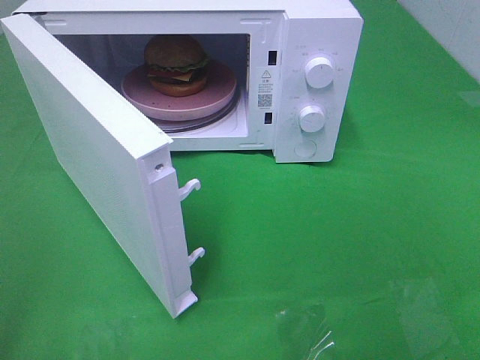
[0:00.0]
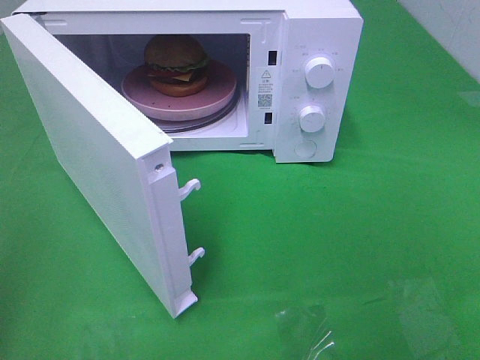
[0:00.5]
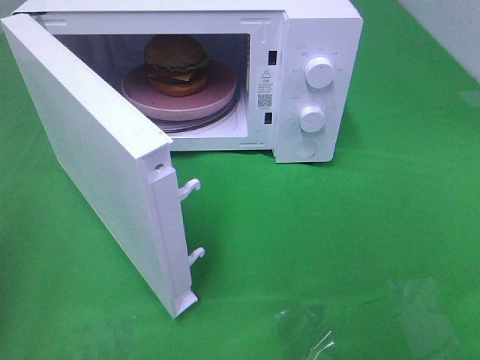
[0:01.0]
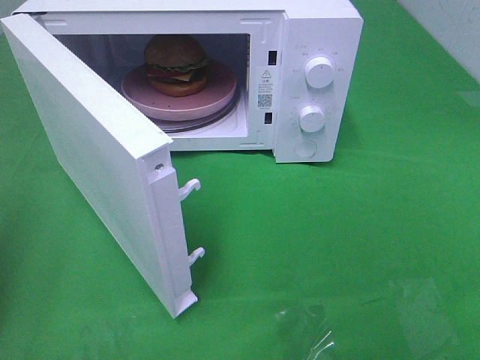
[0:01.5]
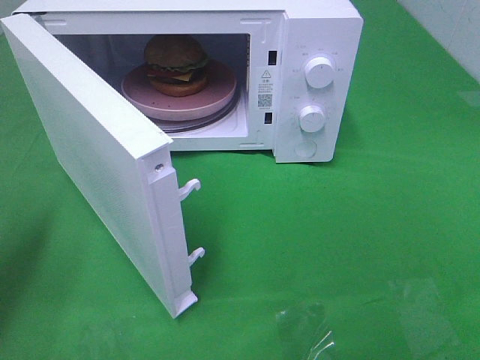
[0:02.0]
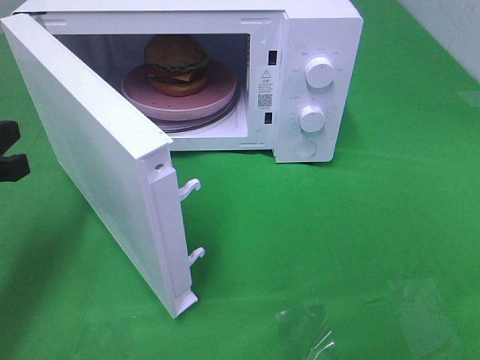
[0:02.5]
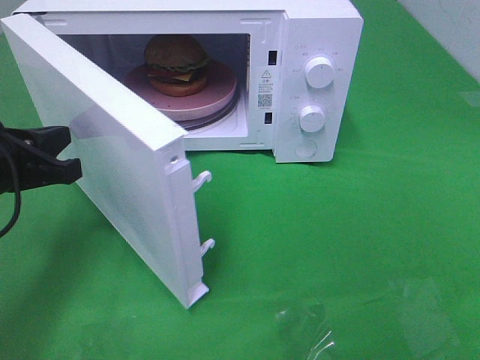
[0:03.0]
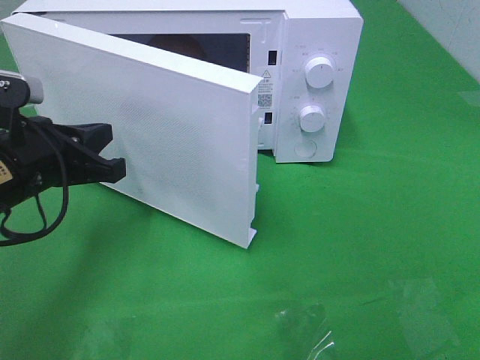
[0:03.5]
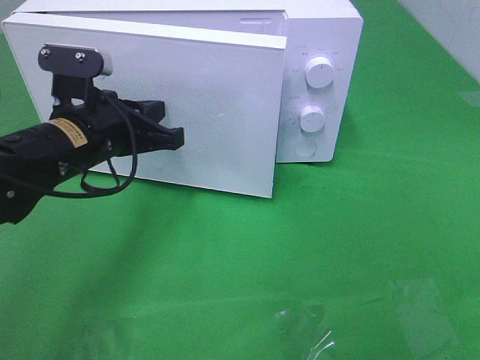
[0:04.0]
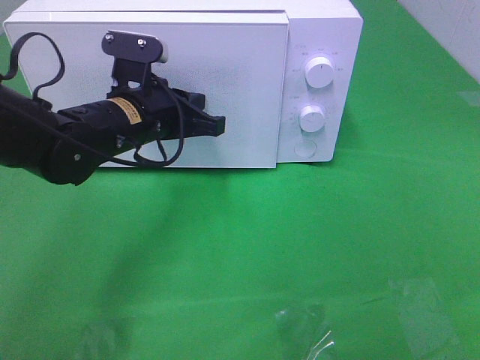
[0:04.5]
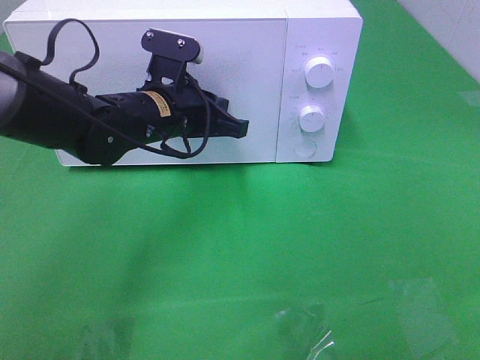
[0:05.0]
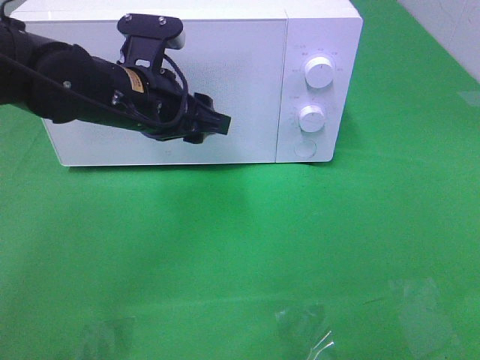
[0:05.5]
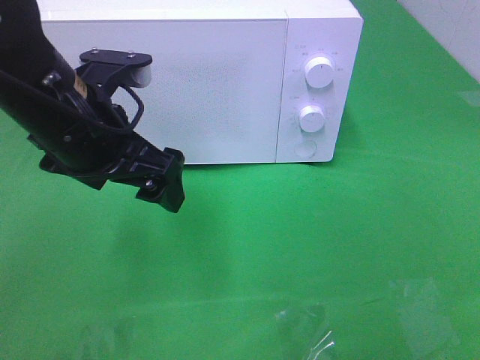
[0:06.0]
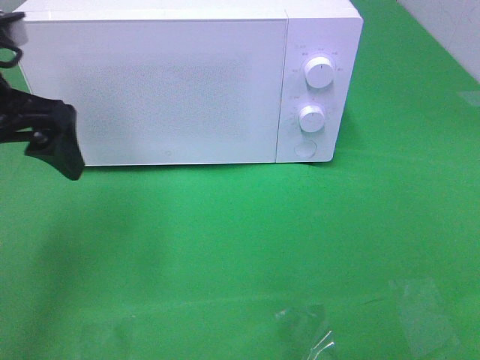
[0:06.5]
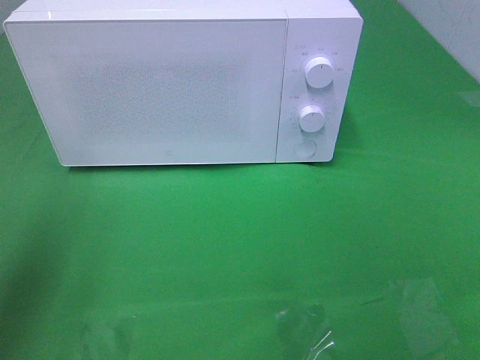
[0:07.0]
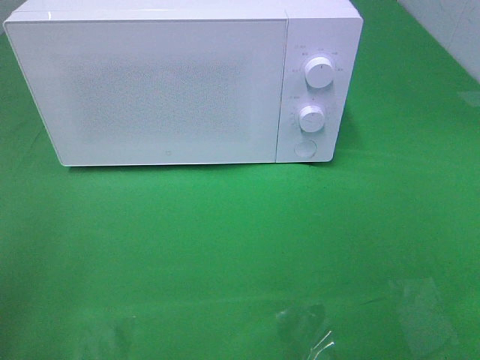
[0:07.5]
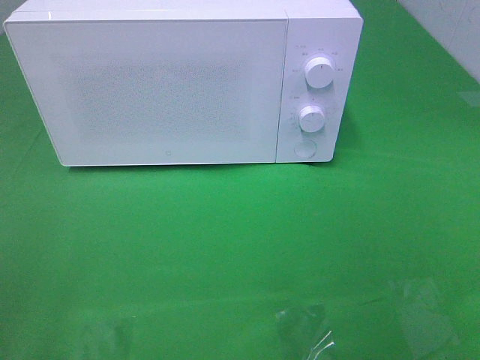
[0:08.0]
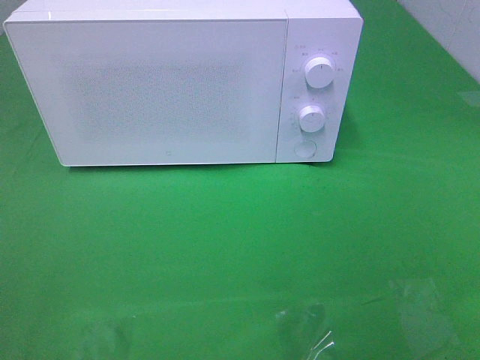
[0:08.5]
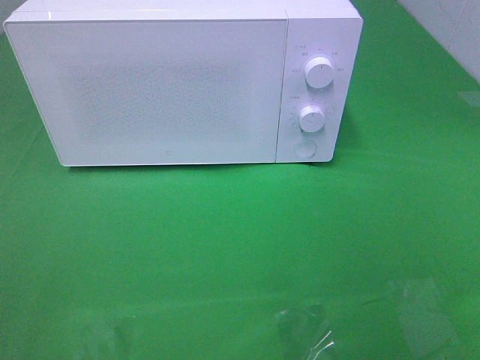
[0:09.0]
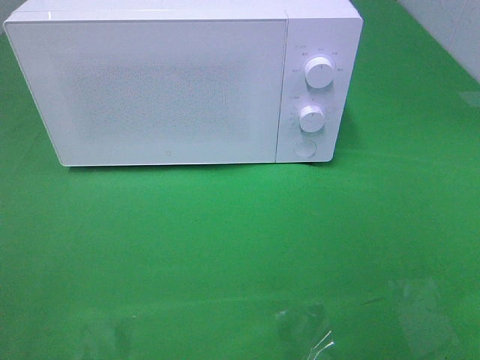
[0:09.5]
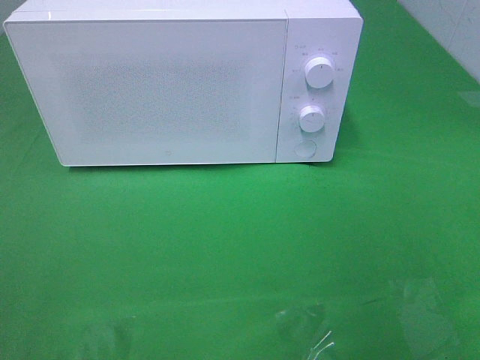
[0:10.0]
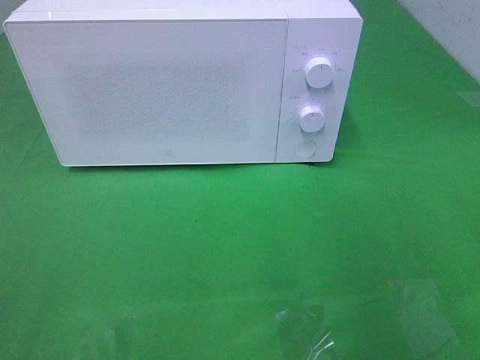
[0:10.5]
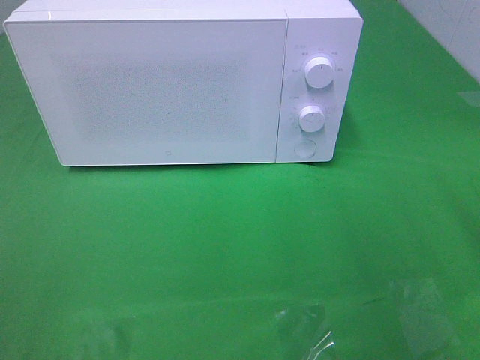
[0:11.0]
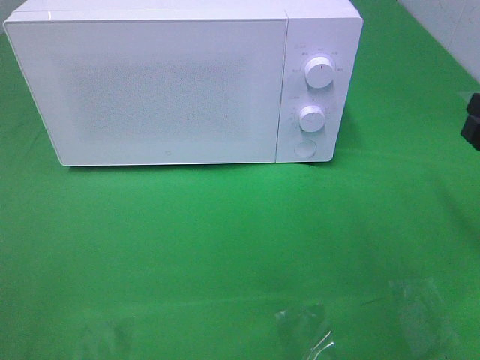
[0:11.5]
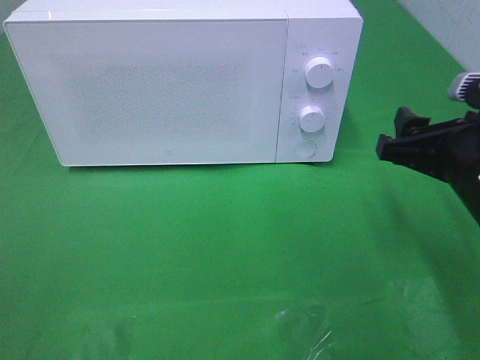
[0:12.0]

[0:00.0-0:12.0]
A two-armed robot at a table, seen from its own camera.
Task of the whole recording: Heat the burger.
Step, 0:00.0 to 0:05.5: Left hand: close the microwave door.
0:00.0 to 0:02.0: The left gripper travels forward and downward by approximately 20 cm, and closes.
0:02.0 to 0:04.0: The left gripper moves to the right and forward, approximately 20 cm.
0:04.0 to 0:06.0: The left gripper is displaced upward by roughly 5 cm, and opens.
0:06.0 to 0:08.0: The left gripper heads backward and to the left, covering approximately 30 cm.
0:10.0 to 0:12.0: The right gripper travels forward, downward and to the left by approximately 20 cm.

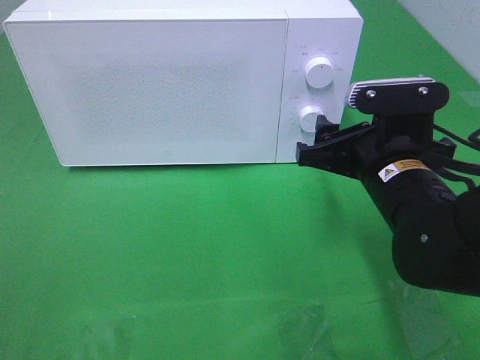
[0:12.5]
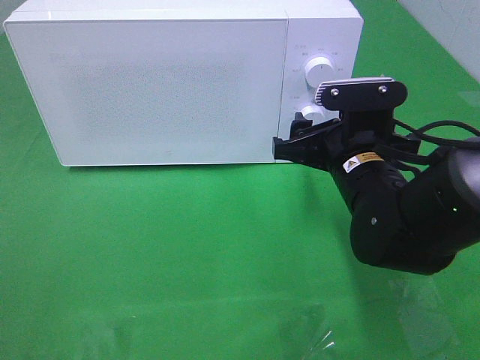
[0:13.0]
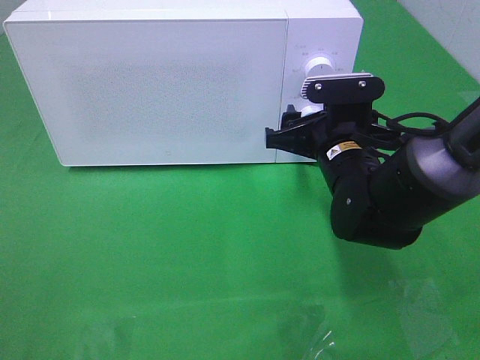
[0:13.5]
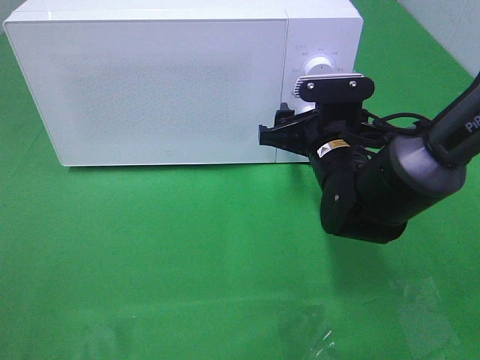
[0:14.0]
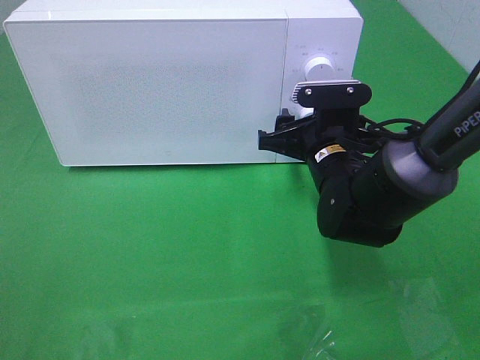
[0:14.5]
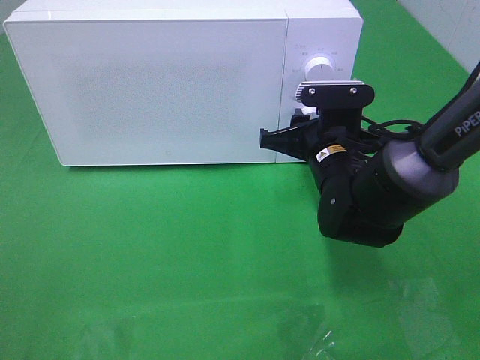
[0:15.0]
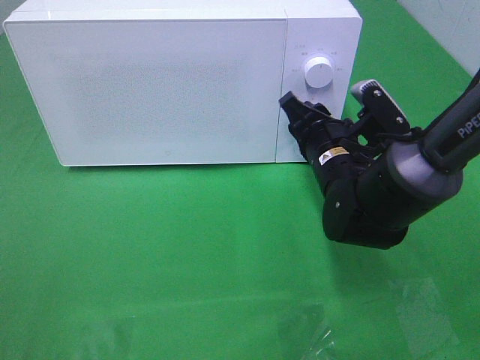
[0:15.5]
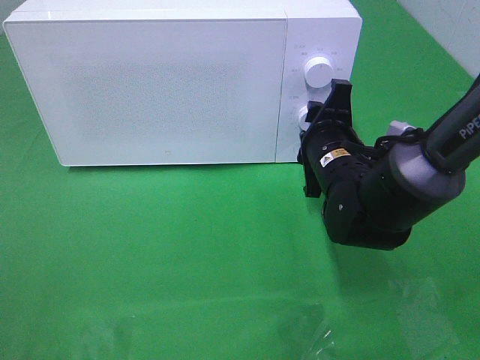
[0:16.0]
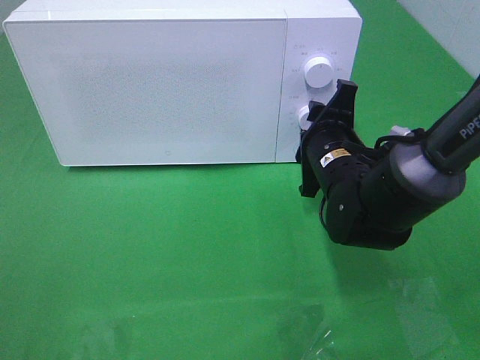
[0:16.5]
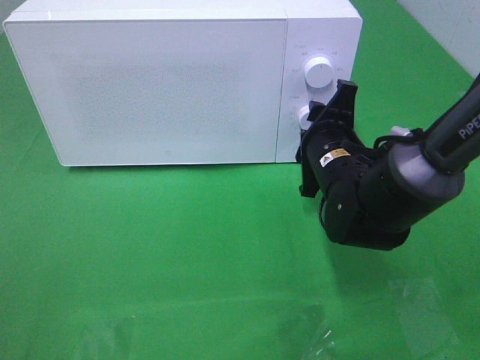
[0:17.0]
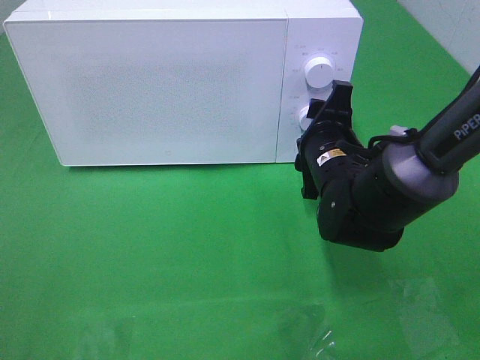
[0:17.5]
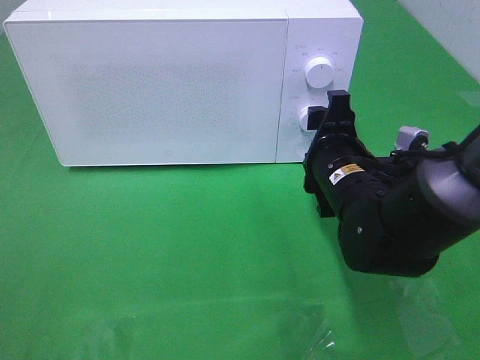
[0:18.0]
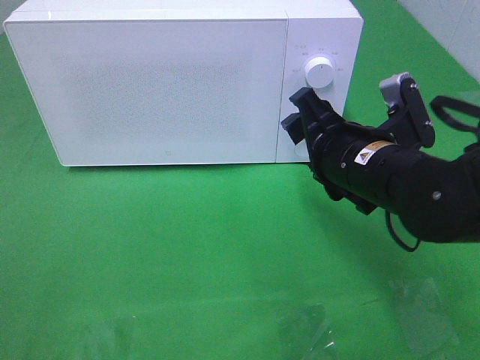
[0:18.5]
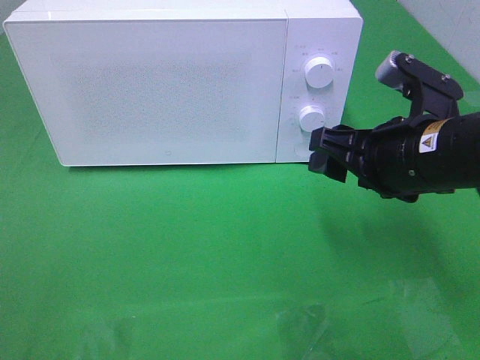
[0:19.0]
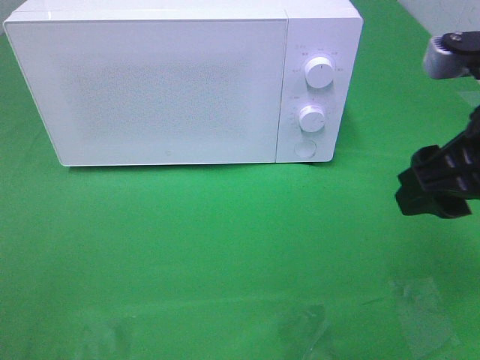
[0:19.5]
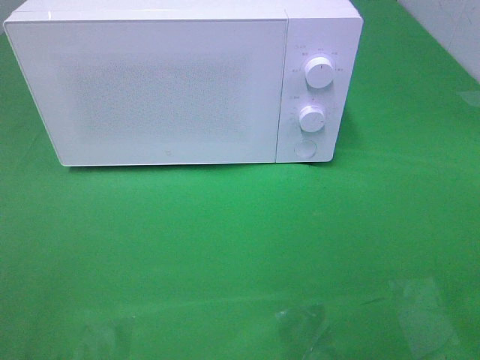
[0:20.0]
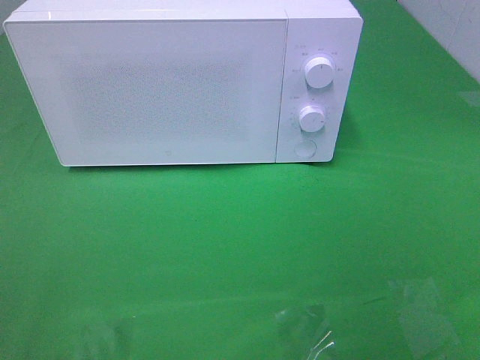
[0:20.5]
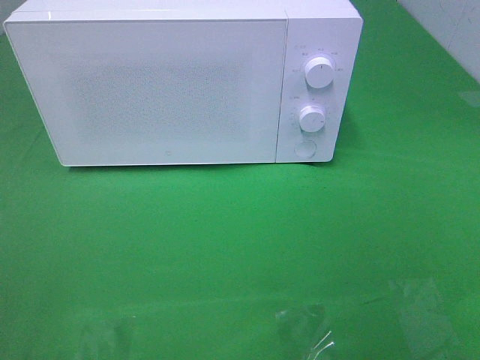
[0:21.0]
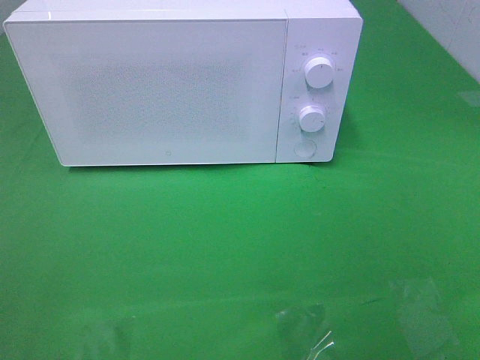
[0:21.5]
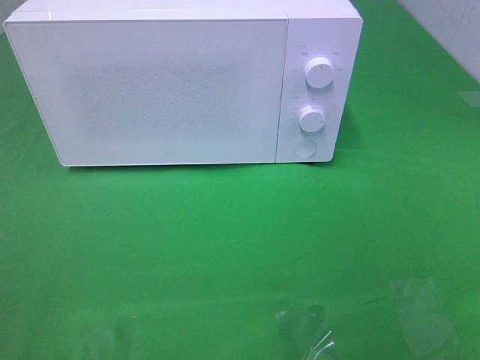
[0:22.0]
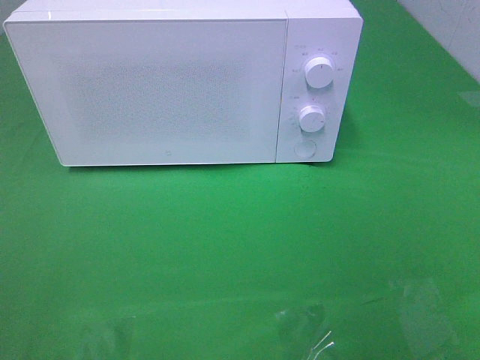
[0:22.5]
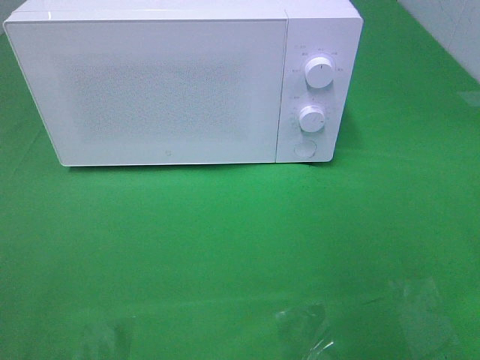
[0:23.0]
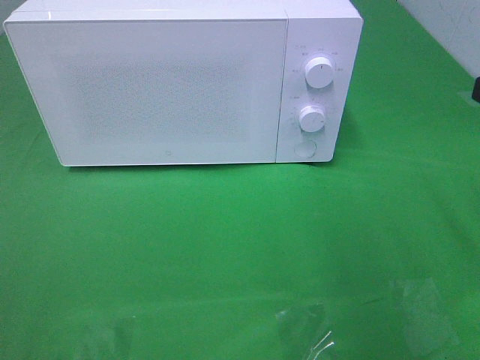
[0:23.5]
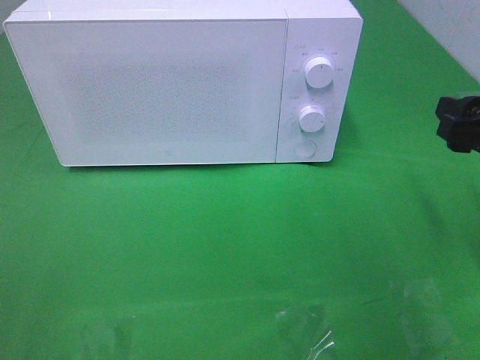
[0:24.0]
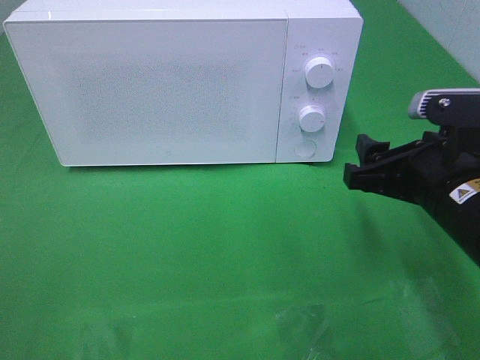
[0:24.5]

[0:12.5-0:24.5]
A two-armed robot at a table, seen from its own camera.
Task of the whole recording: Heat the burger.
Step, 0:12.5 to 0:18.0: Right hand: twist timer button.
0:12.5 to 0:14.5: The right gripper goes approximately 5 cm forward.
0:16.5 to 0:18.5: The right gripper travels backward and upward by approximately 10 cm.
0:18.5 to 0:20.5: The right gripper heads backward, to the right and upward, covering roughly 30 cm.
0:22.5 to 0:24.5: The right gripper is displaced forward, downward and to the left by approximately 25 cm.

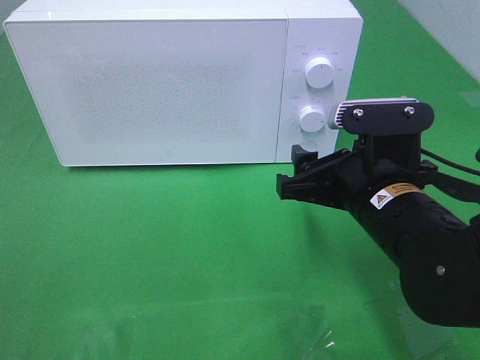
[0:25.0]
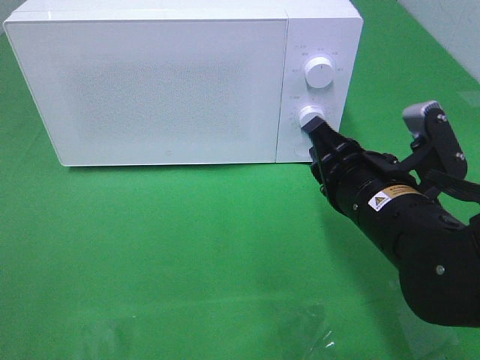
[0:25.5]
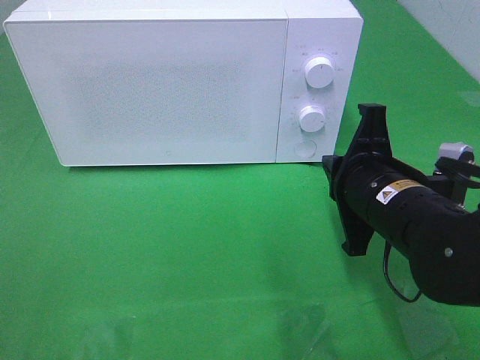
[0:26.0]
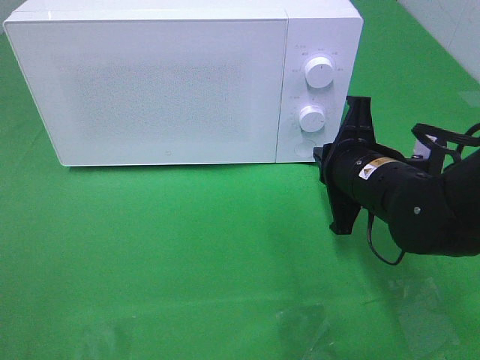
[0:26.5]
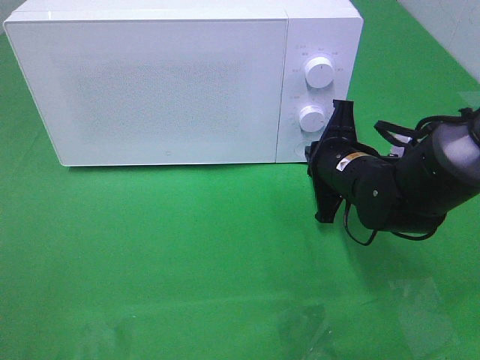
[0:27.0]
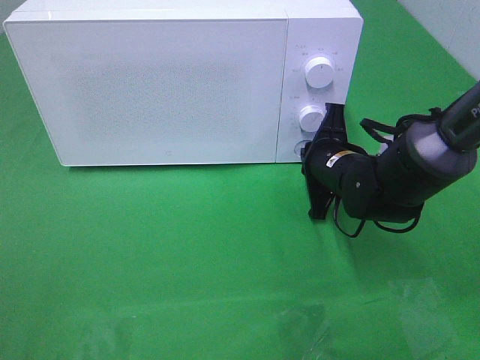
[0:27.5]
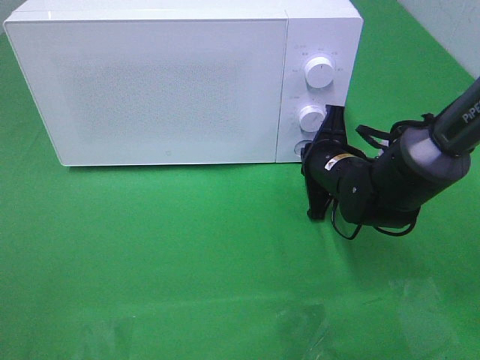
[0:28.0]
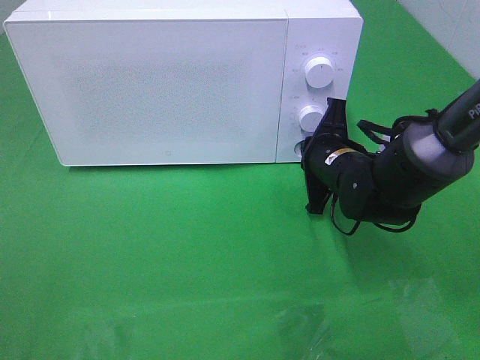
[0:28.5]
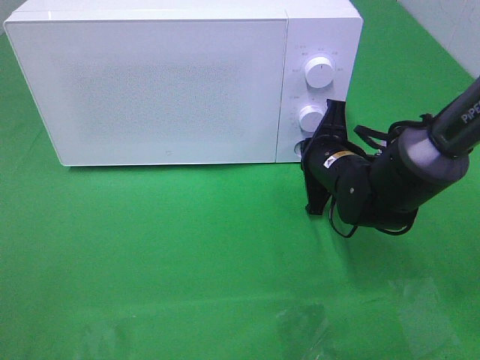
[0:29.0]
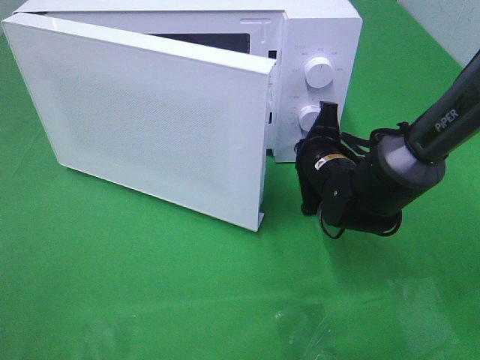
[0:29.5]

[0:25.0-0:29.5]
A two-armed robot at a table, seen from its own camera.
Task of the whole recording: Heat the burger.
0:25.0 to 0:27.0: The right gripper shifts approximately 10 cm forward and downward, and closes up.
0:27.0 to 0:29.5: The grippers make only small movements.
